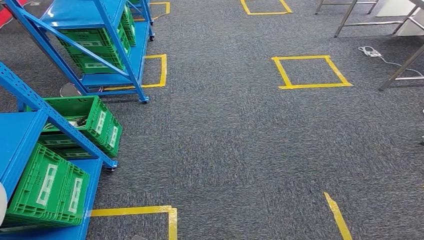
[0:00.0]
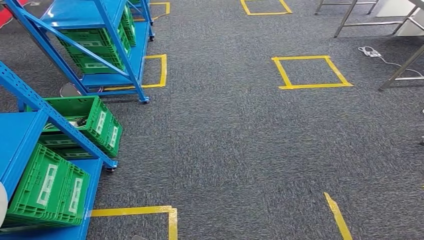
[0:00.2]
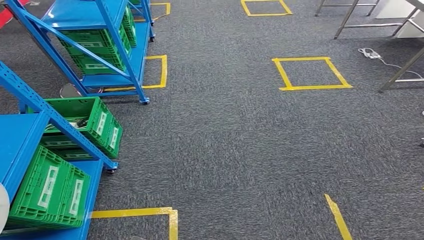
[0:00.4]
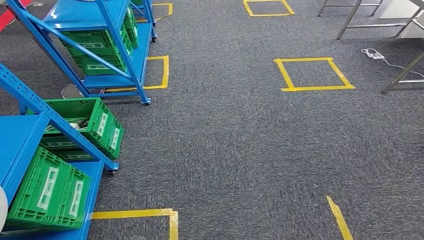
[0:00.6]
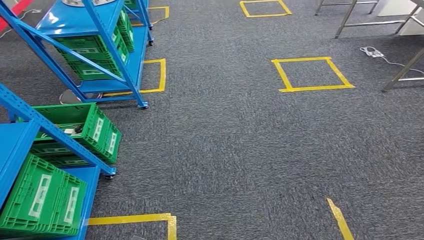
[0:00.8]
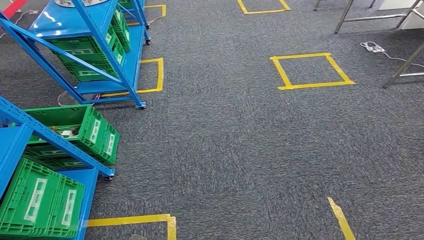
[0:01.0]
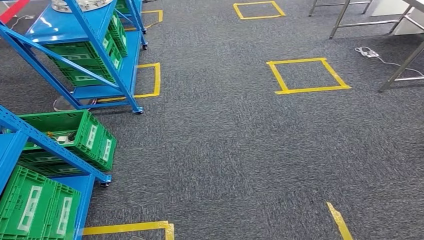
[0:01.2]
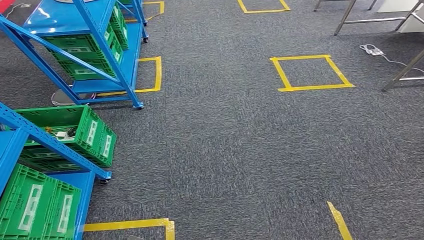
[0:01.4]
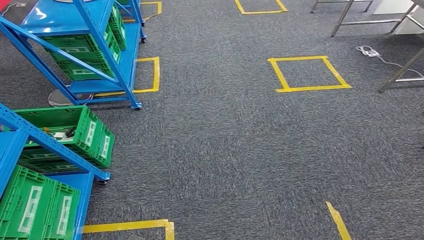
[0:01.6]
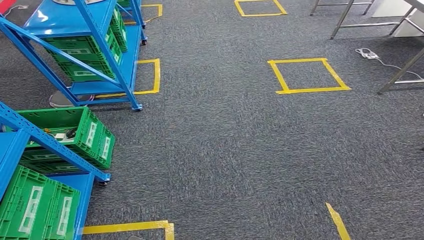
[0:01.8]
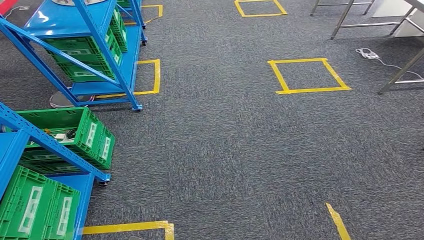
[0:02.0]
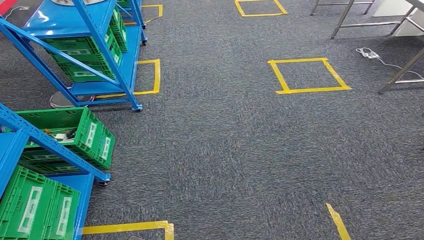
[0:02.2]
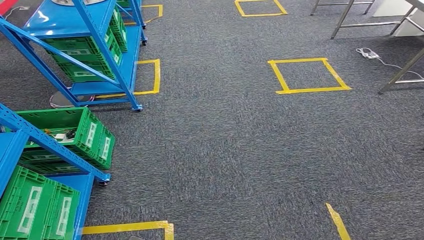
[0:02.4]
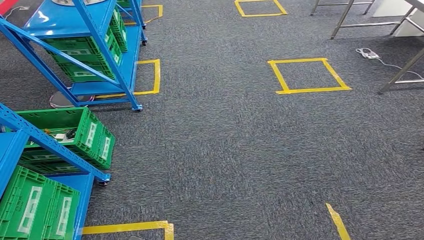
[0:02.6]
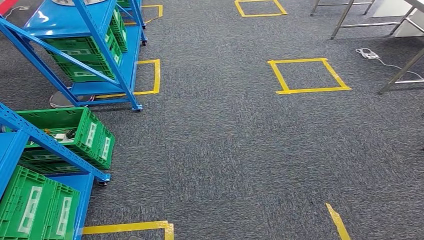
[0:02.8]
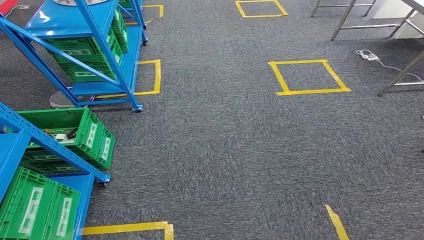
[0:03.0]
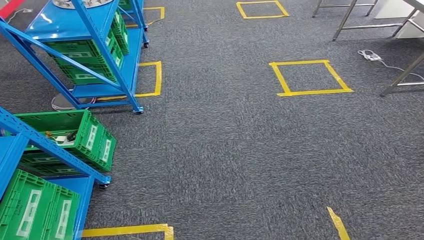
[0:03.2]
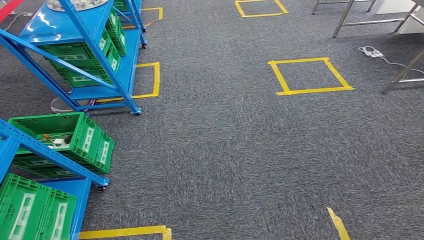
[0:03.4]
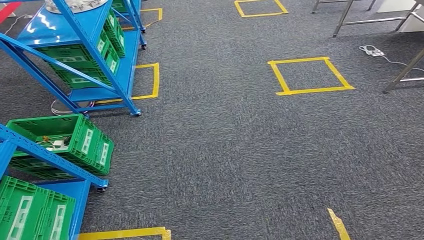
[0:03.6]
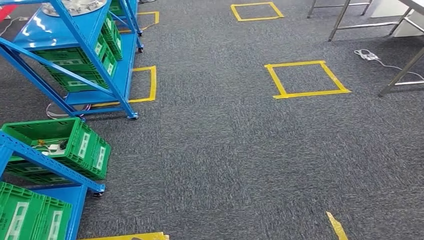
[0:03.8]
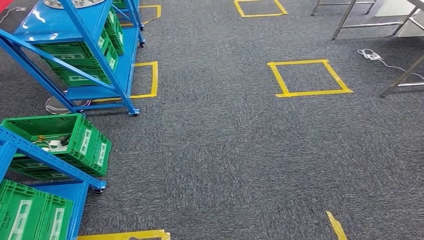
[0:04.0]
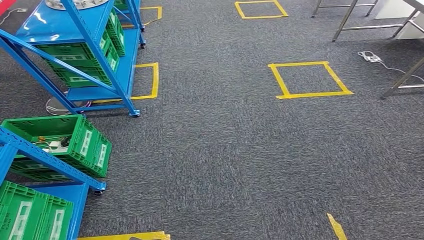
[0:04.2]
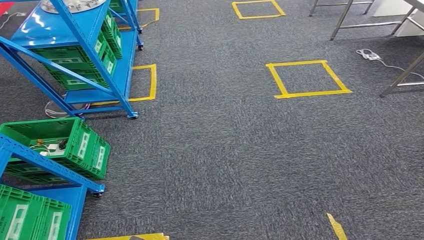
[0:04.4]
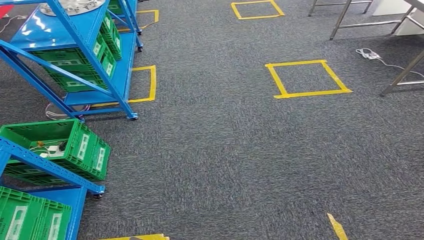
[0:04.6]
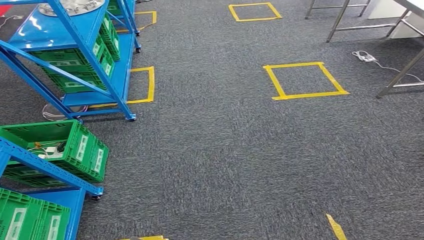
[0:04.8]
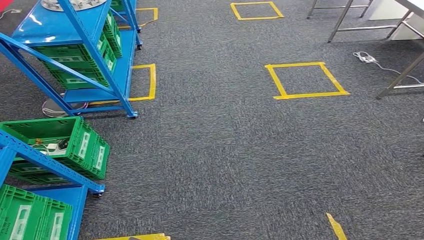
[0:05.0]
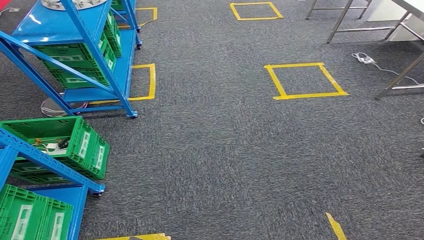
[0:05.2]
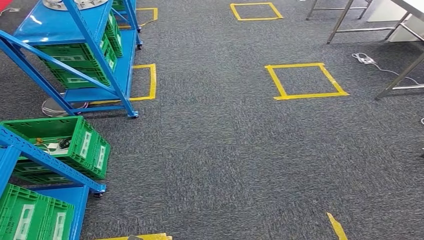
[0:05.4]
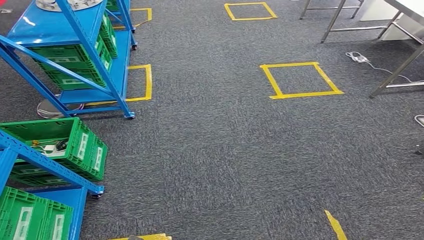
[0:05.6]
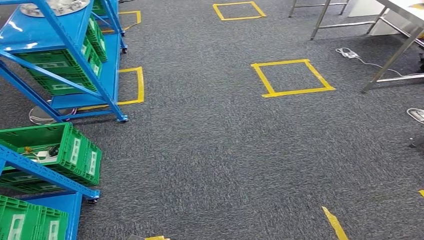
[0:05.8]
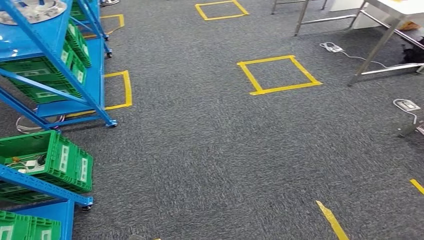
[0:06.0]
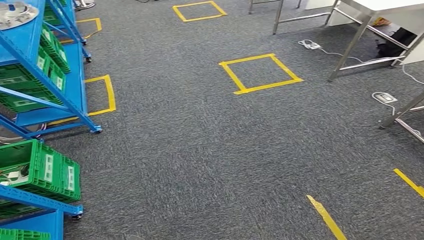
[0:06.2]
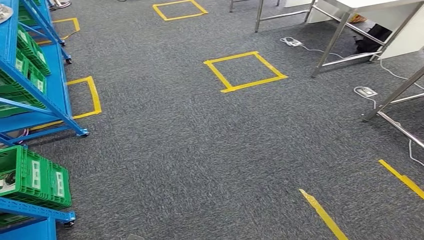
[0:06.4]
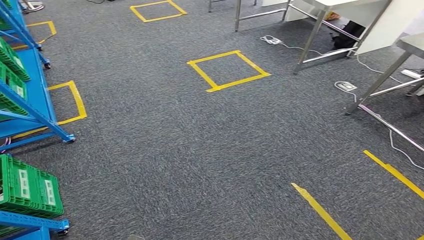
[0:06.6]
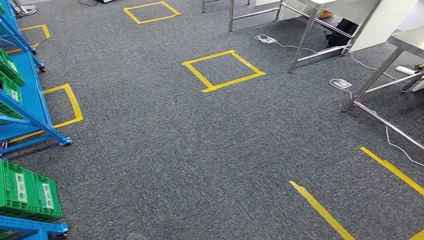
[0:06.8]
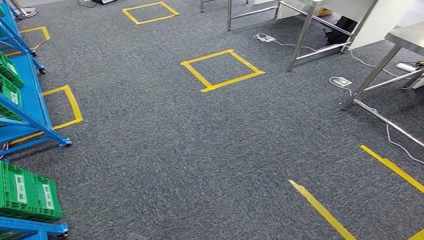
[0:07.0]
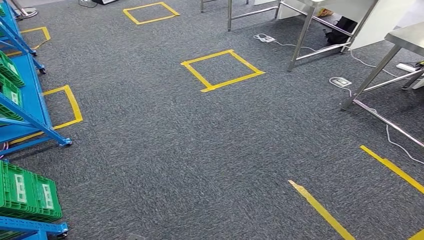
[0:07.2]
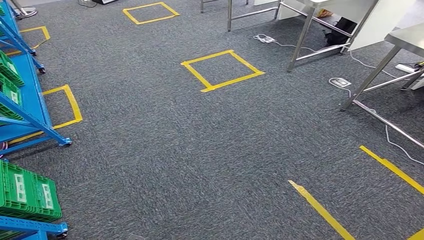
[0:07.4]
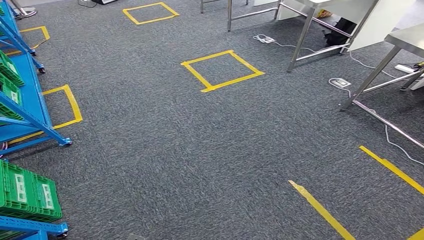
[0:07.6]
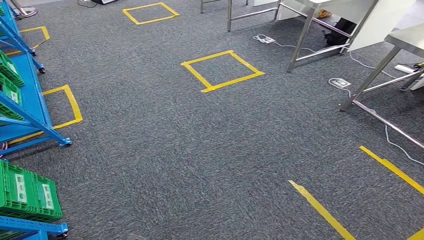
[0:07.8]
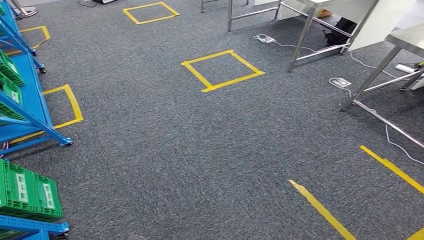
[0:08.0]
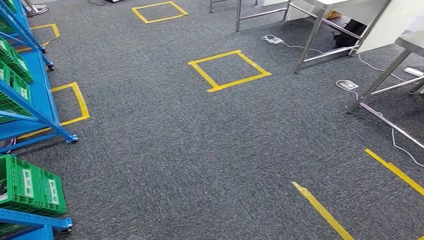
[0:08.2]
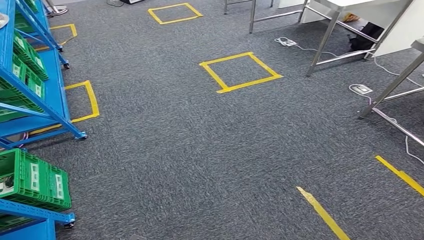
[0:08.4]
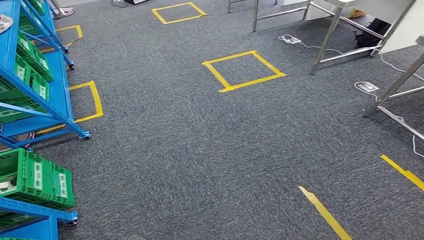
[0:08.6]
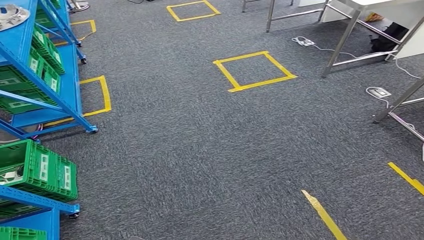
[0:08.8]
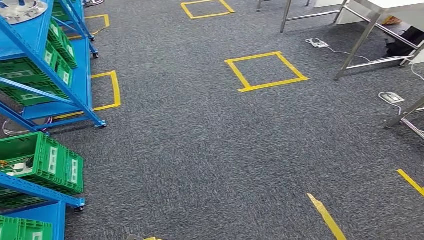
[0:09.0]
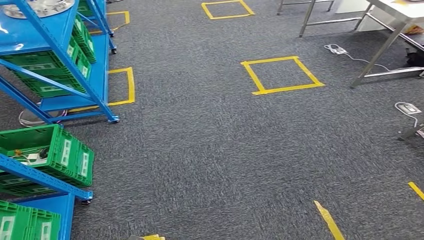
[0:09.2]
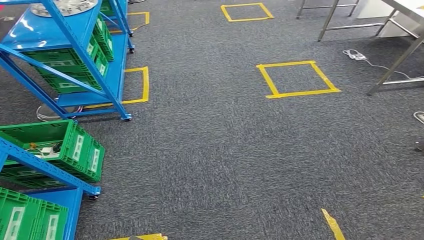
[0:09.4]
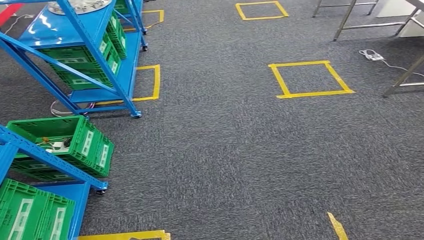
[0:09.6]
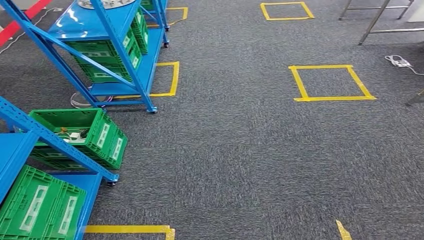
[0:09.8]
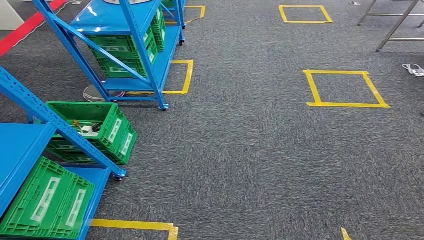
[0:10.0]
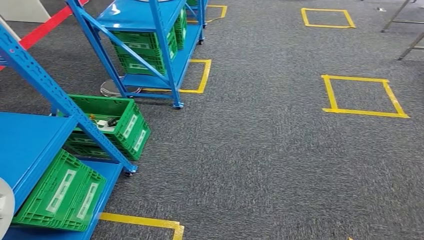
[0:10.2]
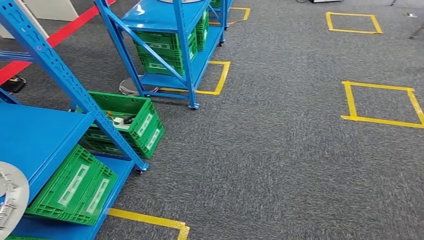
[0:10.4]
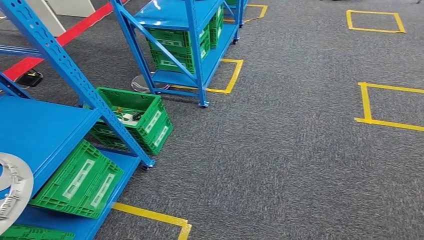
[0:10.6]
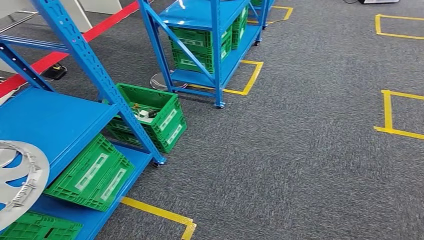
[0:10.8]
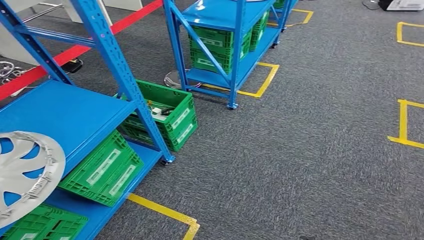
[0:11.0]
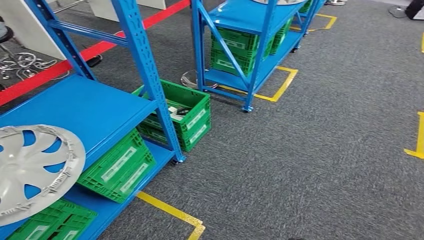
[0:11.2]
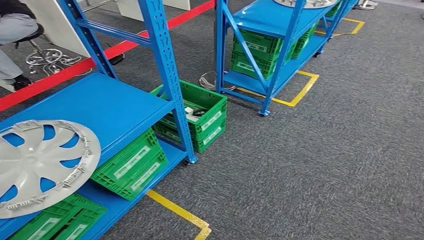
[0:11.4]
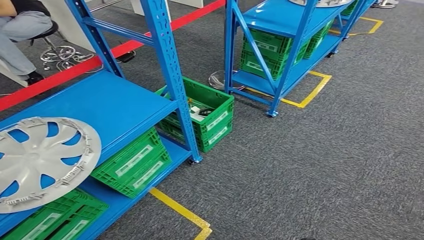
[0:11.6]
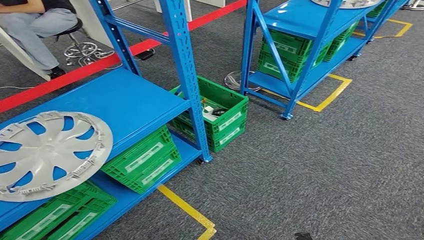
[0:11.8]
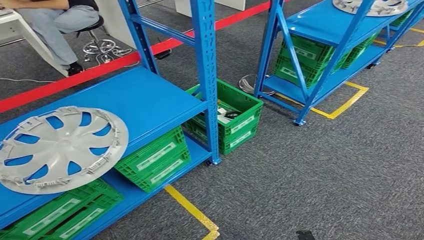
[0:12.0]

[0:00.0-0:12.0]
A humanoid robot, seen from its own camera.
0:01.6 to 0:04.4: Both hands stay about where they are.

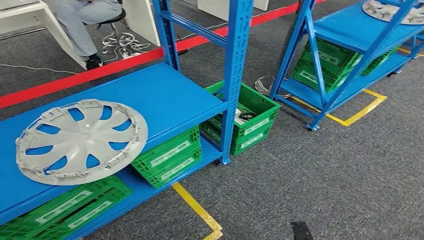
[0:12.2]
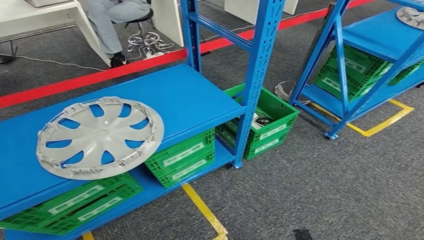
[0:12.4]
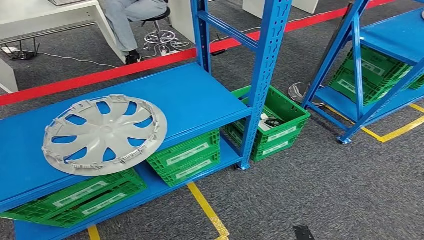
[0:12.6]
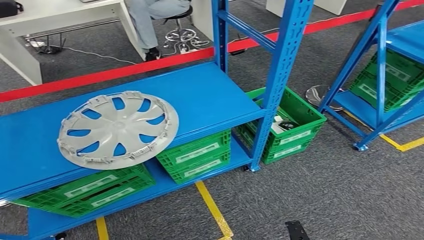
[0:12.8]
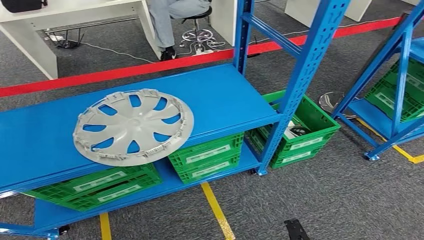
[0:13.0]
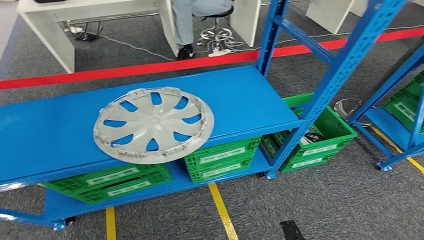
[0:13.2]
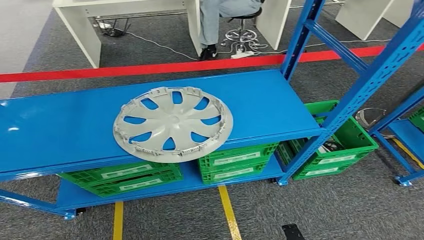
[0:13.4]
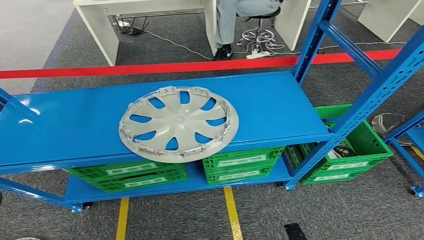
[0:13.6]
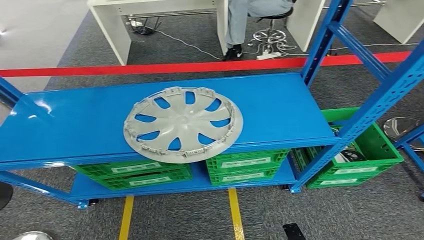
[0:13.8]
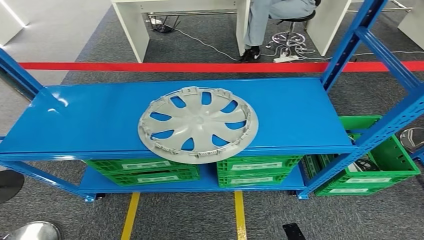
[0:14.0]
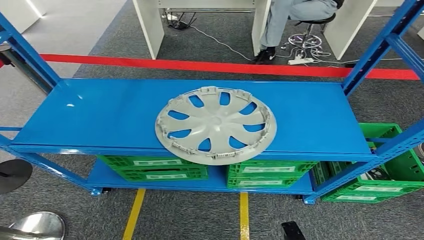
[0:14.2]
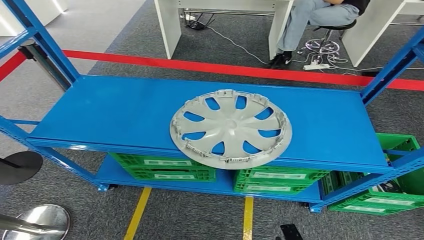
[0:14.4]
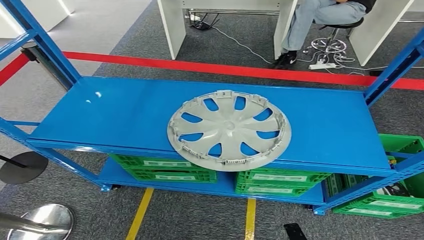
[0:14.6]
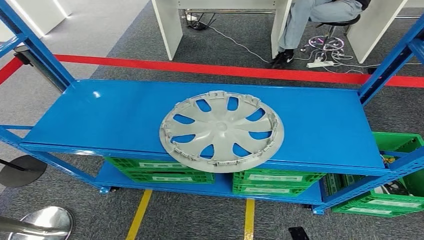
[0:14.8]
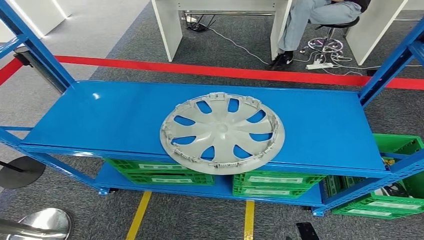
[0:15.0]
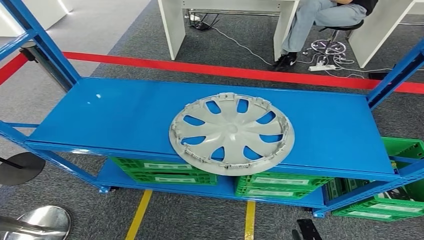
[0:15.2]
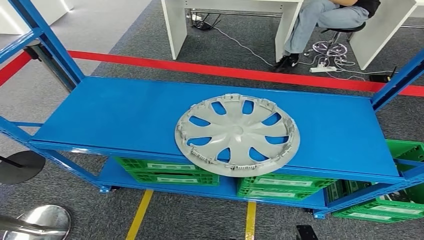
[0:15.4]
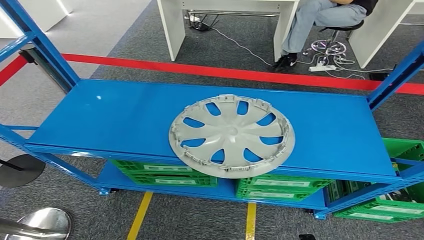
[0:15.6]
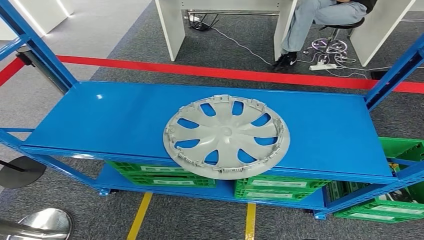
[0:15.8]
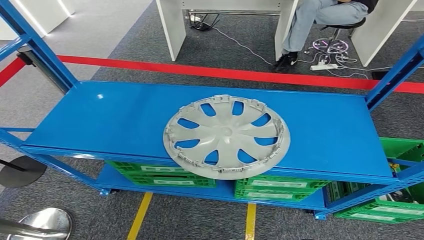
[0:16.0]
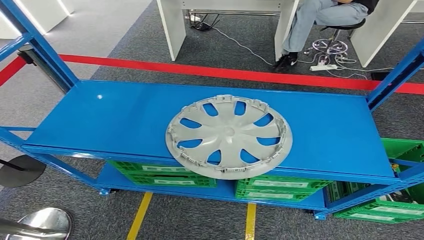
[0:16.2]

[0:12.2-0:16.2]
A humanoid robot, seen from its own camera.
Step, 0:12.2 to 0:16.2: Move to the initial position of the workbench.
